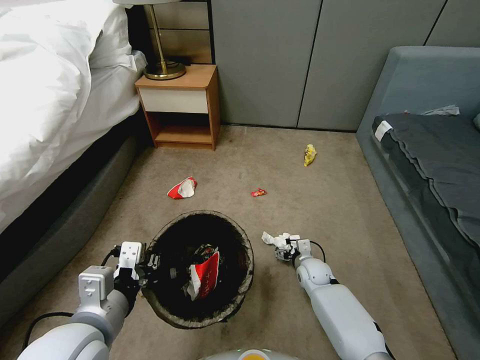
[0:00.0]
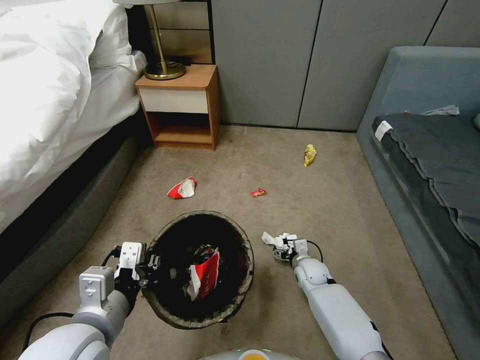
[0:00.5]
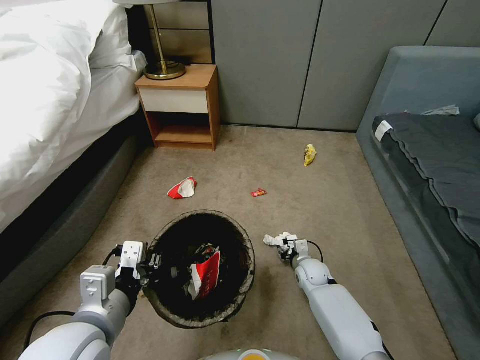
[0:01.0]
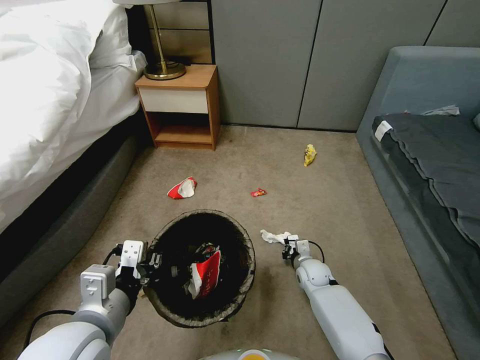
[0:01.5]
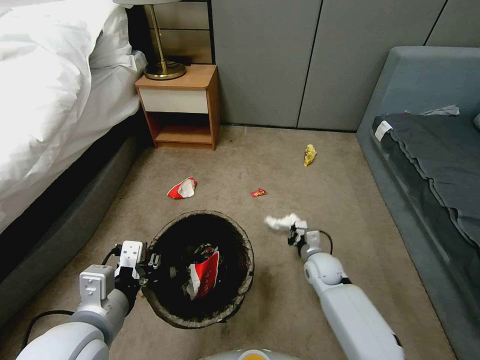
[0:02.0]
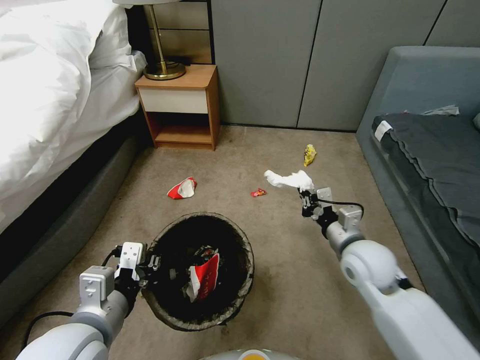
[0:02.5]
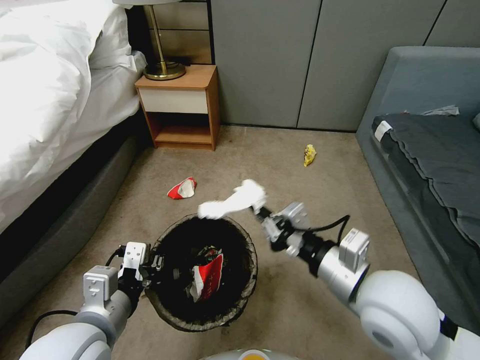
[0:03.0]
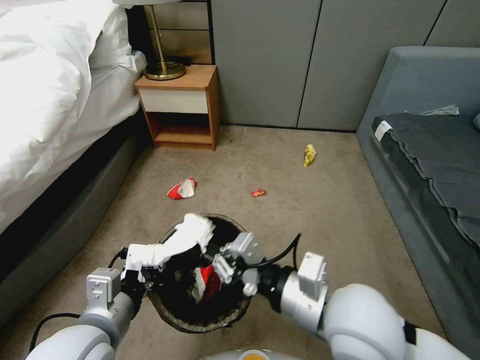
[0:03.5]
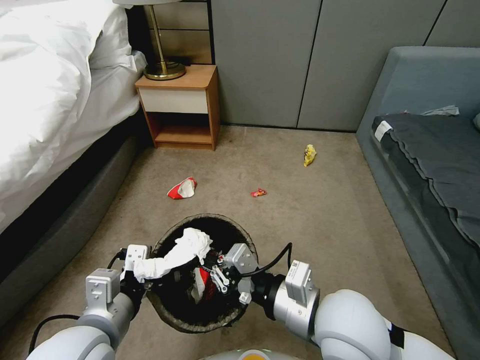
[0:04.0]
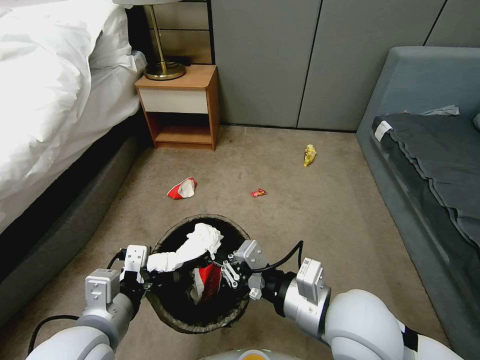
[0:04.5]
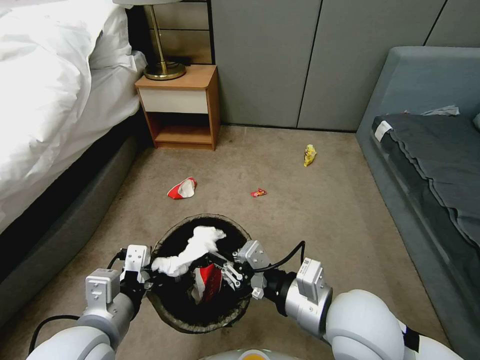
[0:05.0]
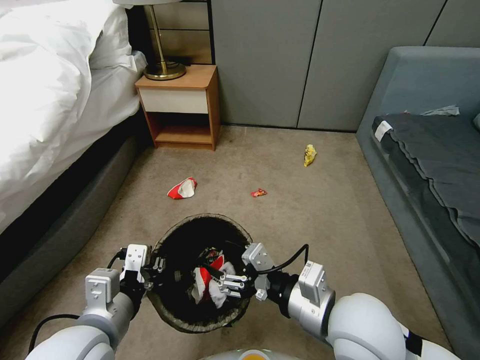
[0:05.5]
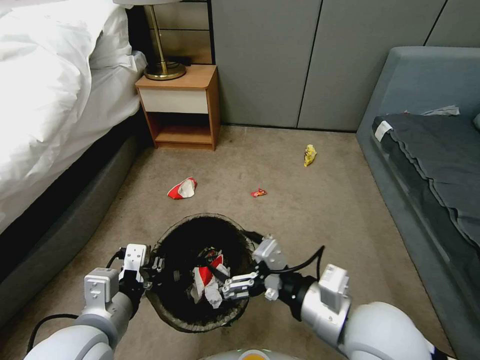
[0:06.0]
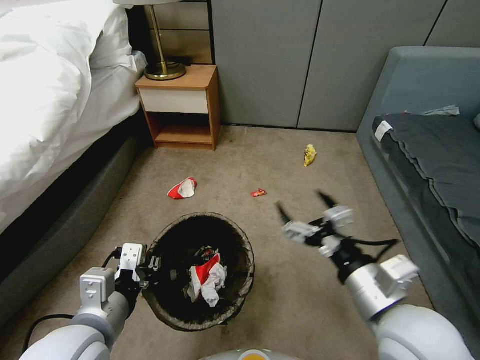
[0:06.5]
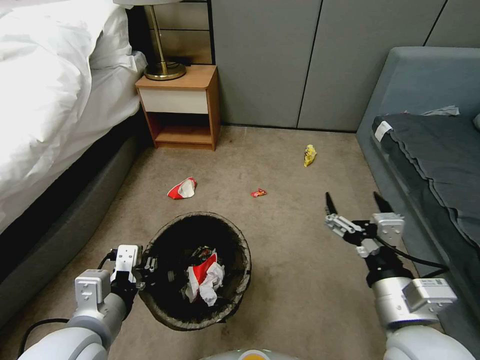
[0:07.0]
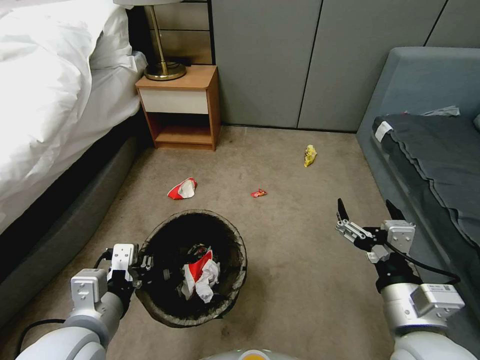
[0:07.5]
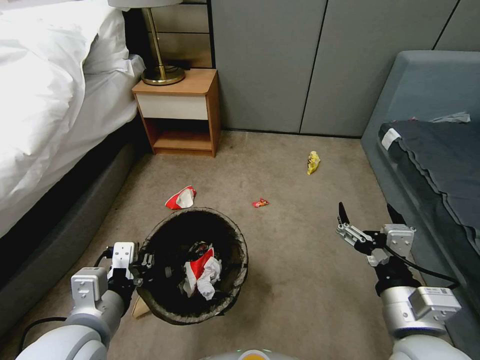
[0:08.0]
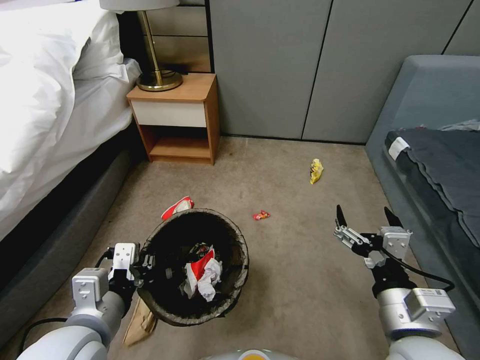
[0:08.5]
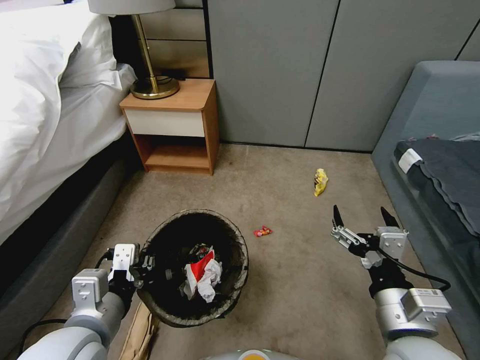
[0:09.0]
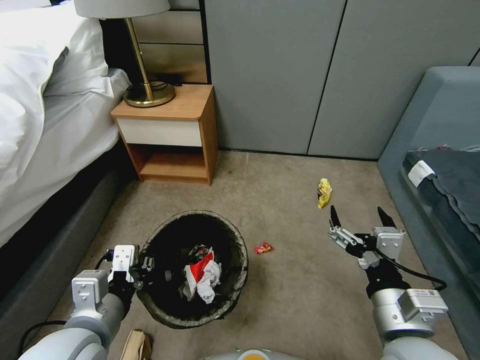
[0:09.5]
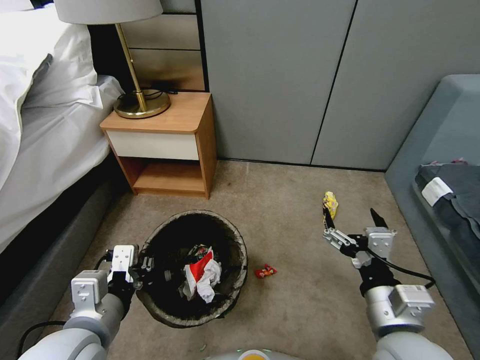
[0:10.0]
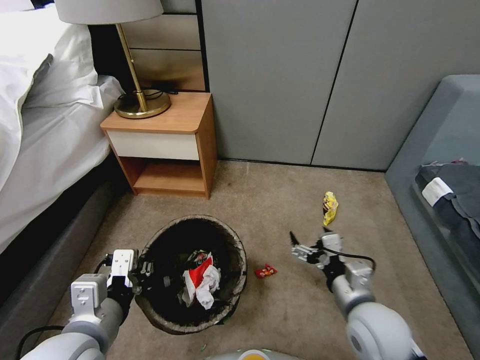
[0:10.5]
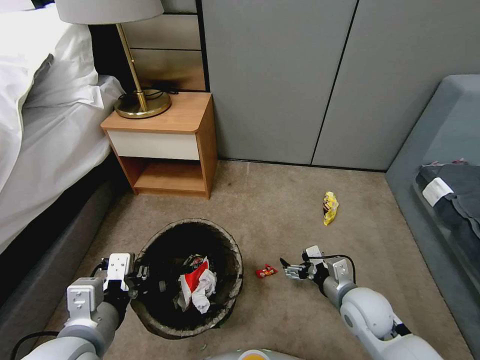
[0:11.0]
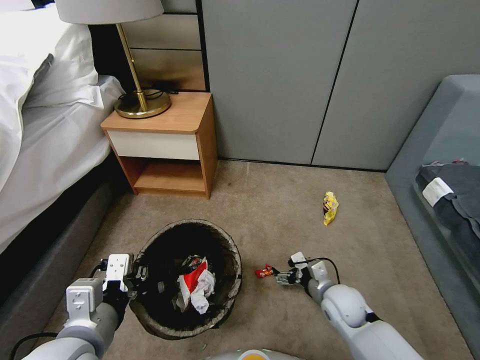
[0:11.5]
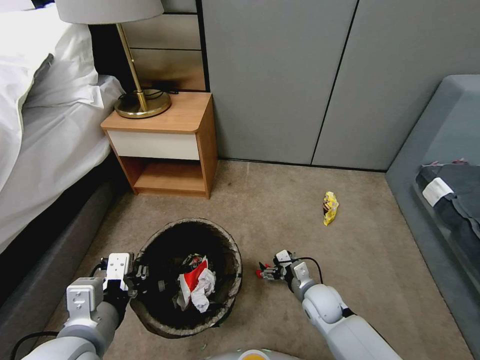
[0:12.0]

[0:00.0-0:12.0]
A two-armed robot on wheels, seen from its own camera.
Task of the whole recording: Pick up the trash bin, then pick up the garbage from the floor and place it into the trash bin.
0.0 to 2.0 s: The right gripper shifts by roughly 5 cm, and closes.
2.0 to 4.0 s: The right gripper goes approximately 35 cm upward and backward.
4.0 to 6.0 s: The right gripper opens.
6.0 to 8.0 s: The right gripper goes roughly 5 cm to the right.
10.0 to 12.0 s: The right gripper moves downward and forward, about 30 cm.

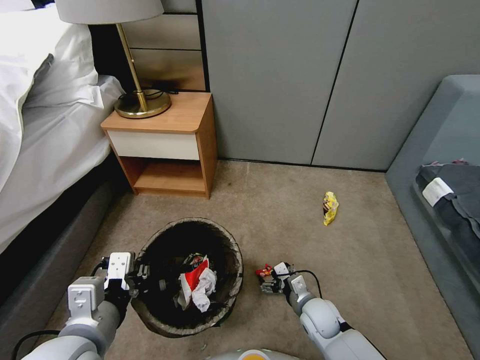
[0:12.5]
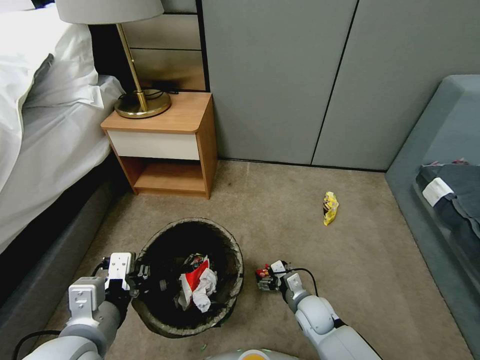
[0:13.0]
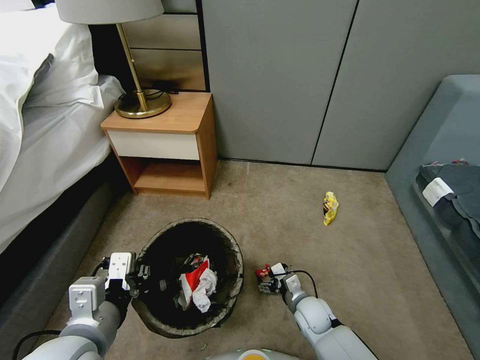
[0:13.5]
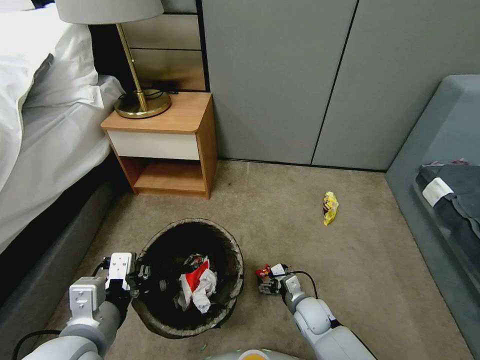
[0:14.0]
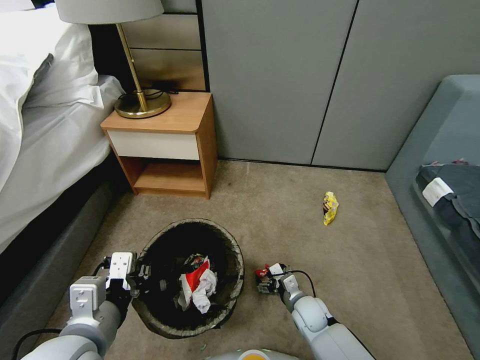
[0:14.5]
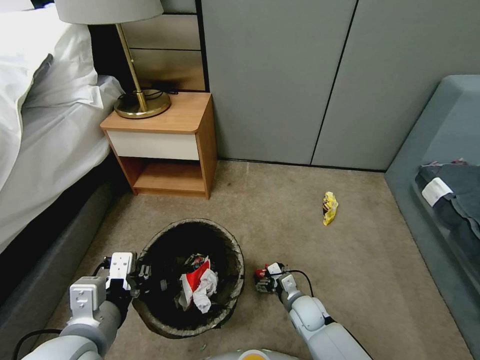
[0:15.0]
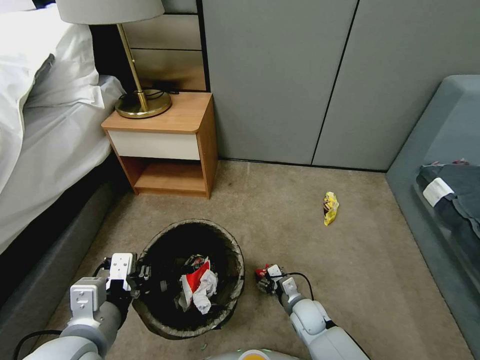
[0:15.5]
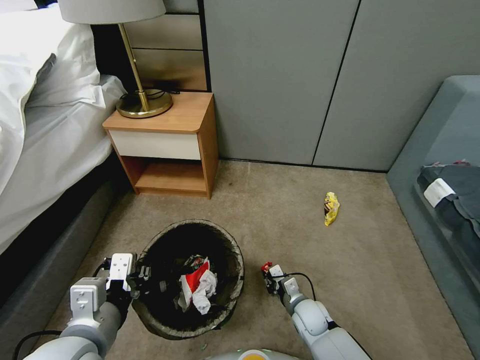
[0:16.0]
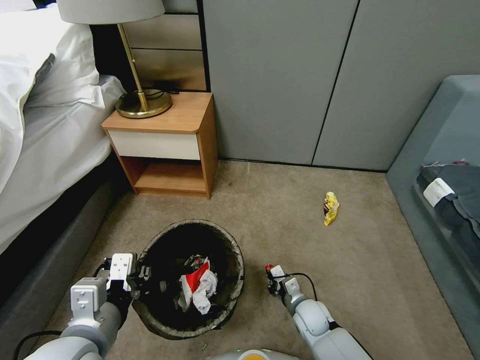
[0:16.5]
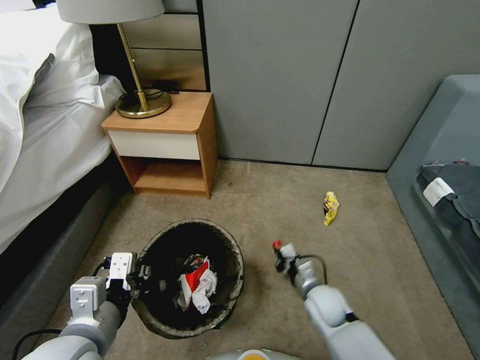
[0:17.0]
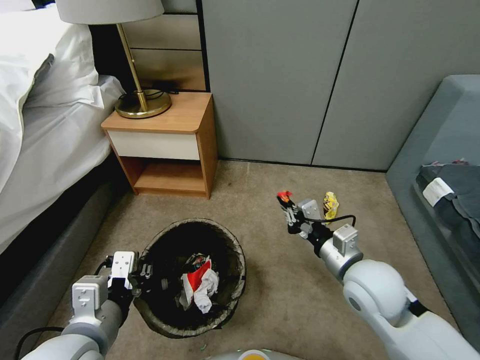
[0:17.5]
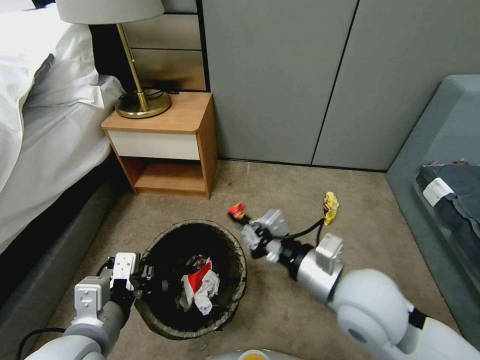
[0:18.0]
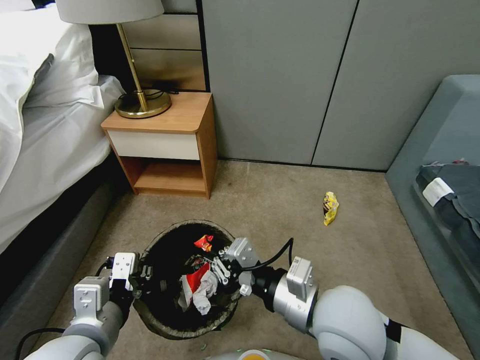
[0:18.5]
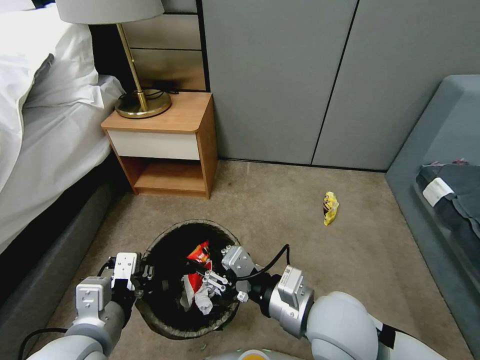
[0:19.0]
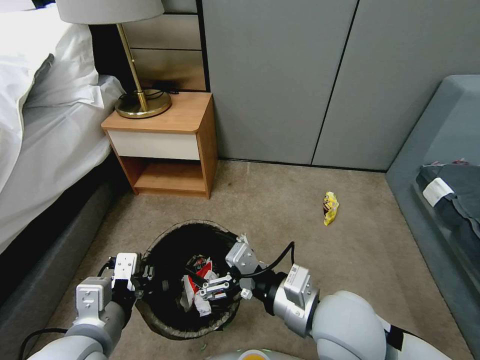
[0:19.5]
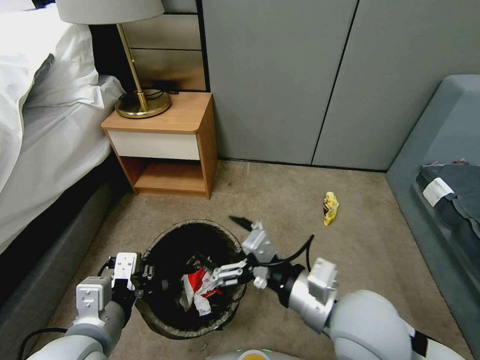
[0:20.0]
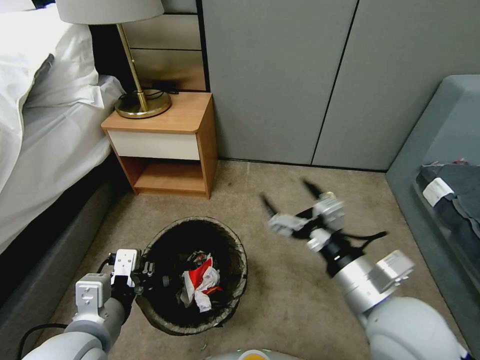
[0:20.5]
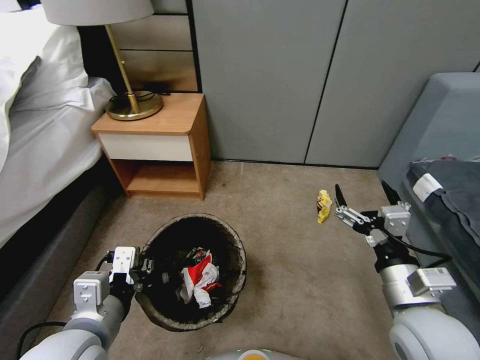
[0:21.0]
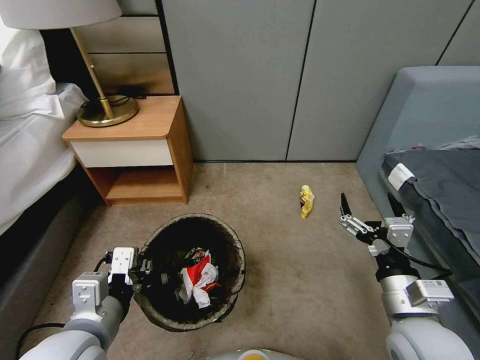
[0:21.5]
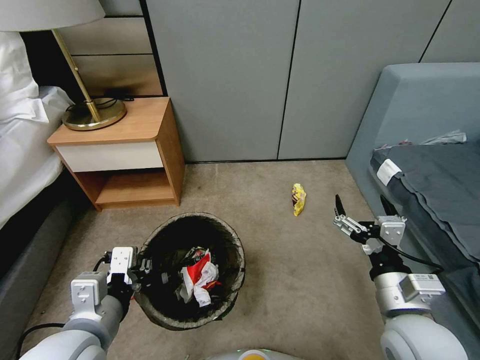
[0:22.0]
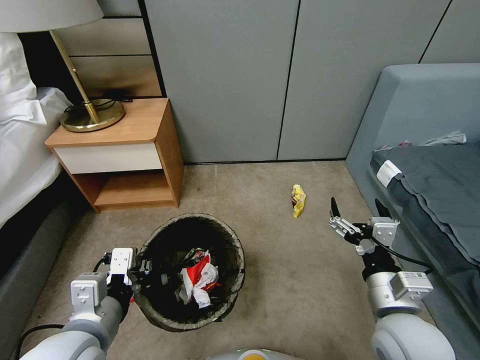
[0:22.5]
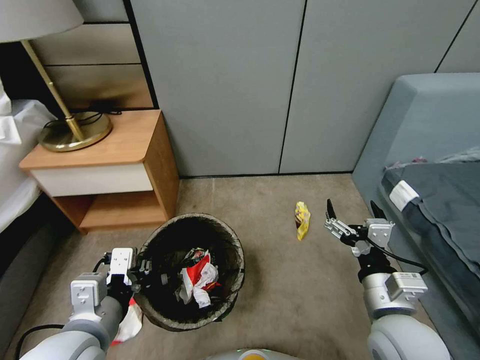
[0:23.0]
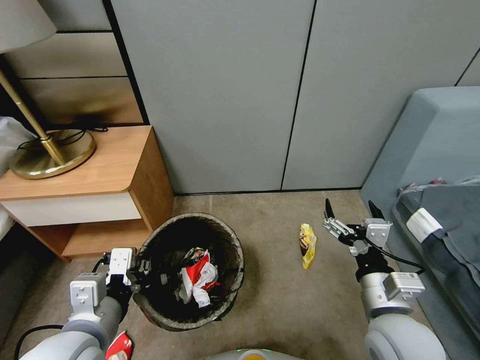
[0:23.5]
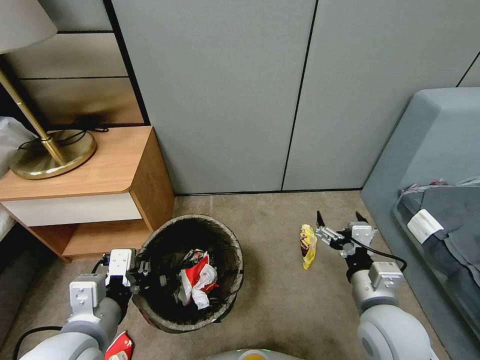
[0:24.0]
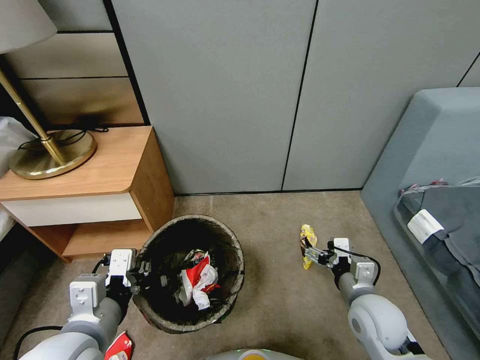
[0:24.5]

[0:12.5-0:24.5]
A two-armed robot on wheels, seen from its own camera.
Task of the whole recording: Pick up the trash bin, then pick up the garbage from the floor and place it into the trash bin.
12.5 to 14.5 s: The grippers stay close to where they were, moving slightly.
14.5 to 16.5 s: The right gripper closes.
16.5 to 18.5 s: The right gripper is displaced upward by about 35 cm.
18.5 to 20.5 s: The right gripper heads to the right, covering approximately 5 cm, and opens.
20.5 to 22.5 s: The right gripper is displaced downward by about 10 cm.
22.5 to 24.5 s: The right gripper shifts some 10 cm downward and forward.

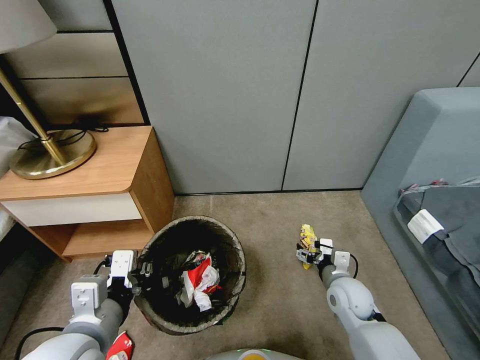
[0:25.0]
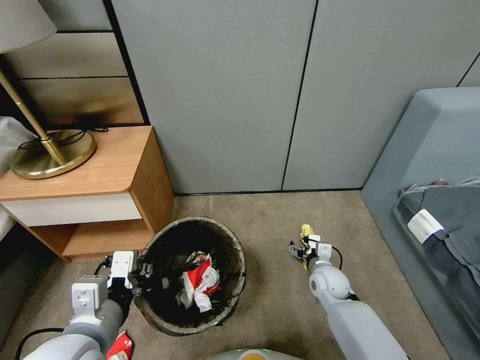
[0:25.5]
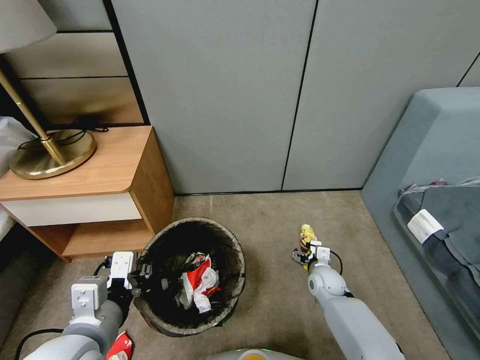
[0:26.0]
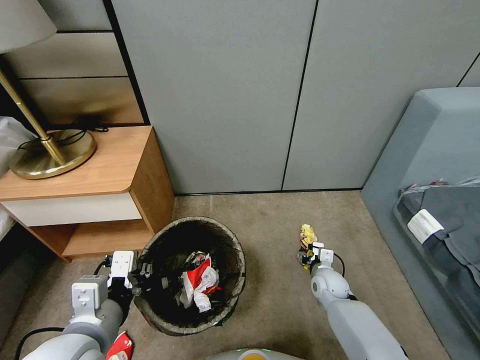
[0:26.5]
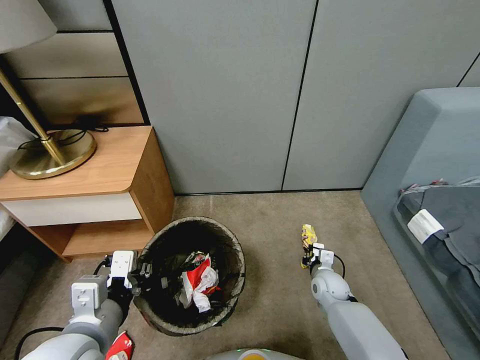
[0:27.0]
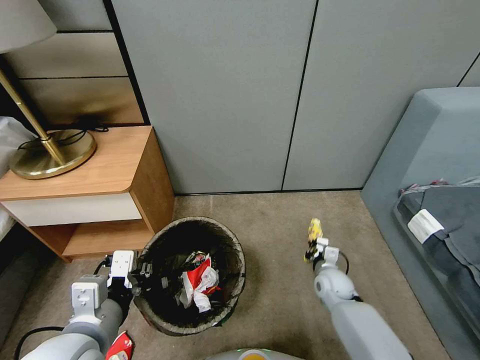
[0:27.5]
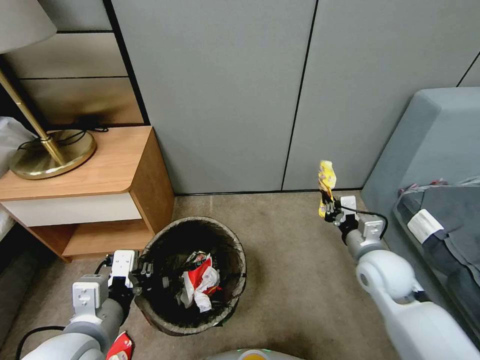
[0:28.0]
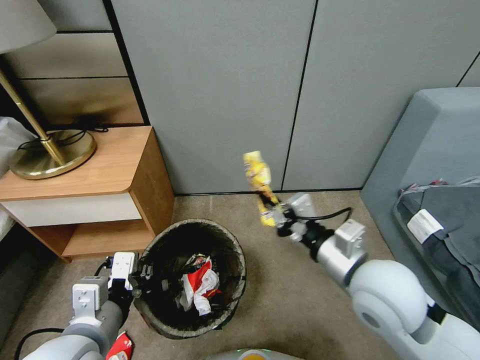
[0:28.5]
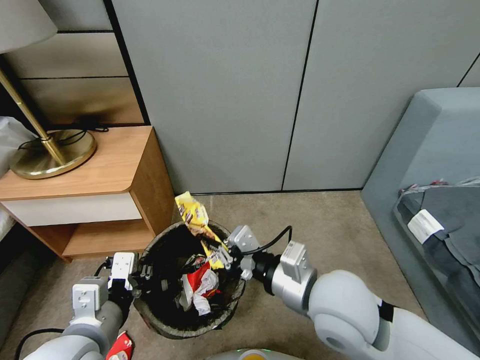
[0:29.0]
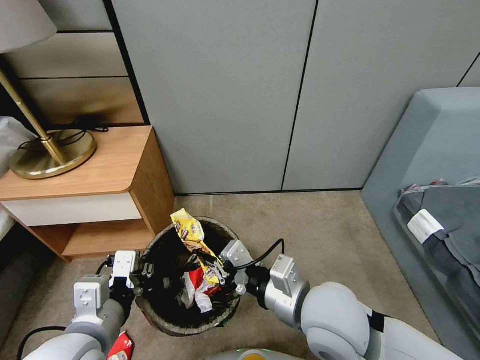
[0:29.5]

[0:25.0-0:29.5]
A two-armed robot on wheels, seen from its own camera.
Task of the whole recording: Pick up the trash bin, then pick up the garbage from the floor and place it into the trash bin.
25.0 to 27.0 s: The right gripper travels downward and forward by approximately 10 cm, and closes.
27.0 to 29.5 s: The right gripper travels upward and backward by some 35 cm.
